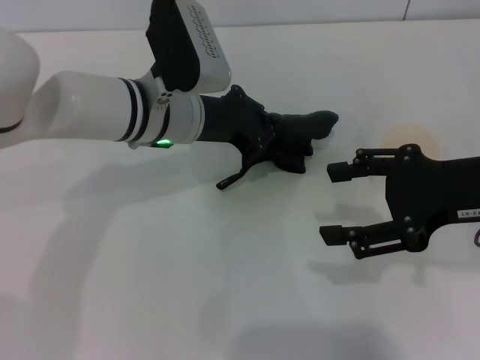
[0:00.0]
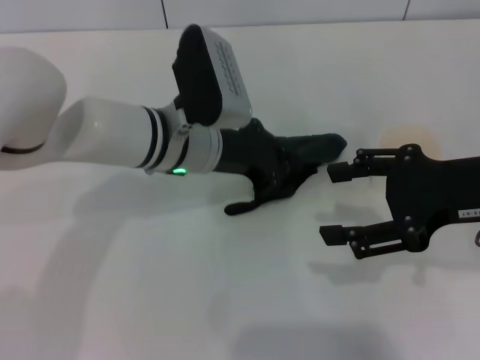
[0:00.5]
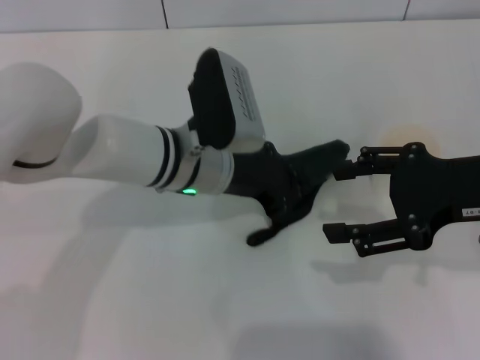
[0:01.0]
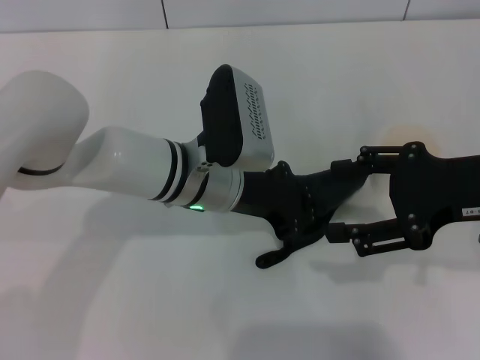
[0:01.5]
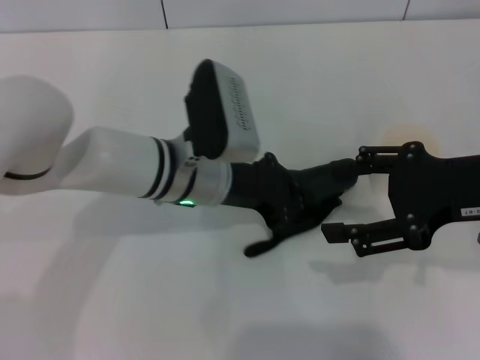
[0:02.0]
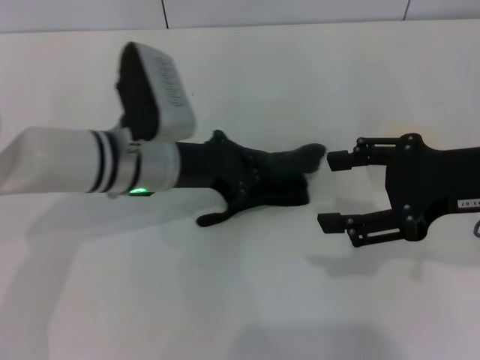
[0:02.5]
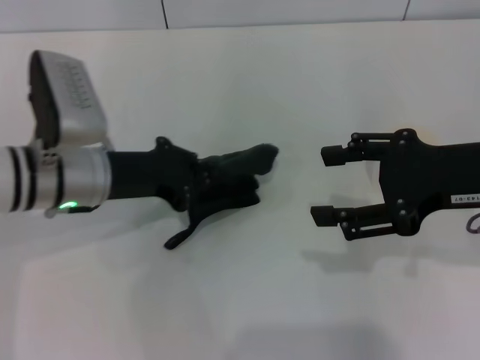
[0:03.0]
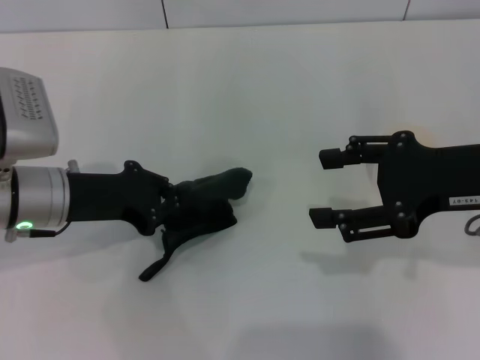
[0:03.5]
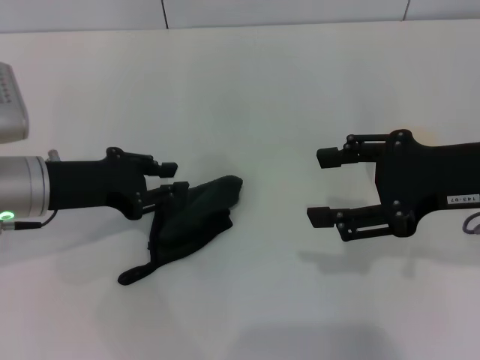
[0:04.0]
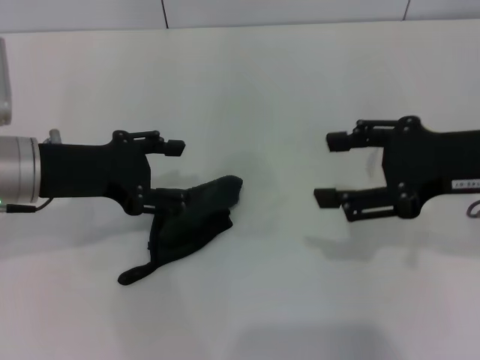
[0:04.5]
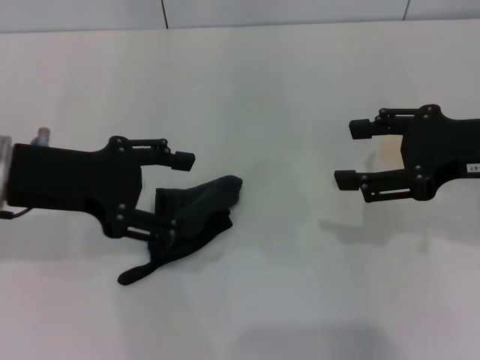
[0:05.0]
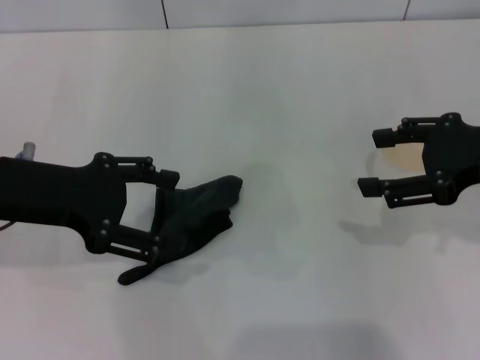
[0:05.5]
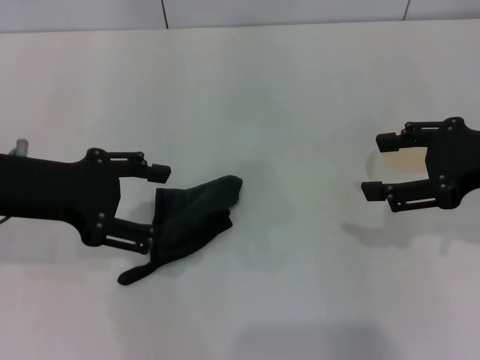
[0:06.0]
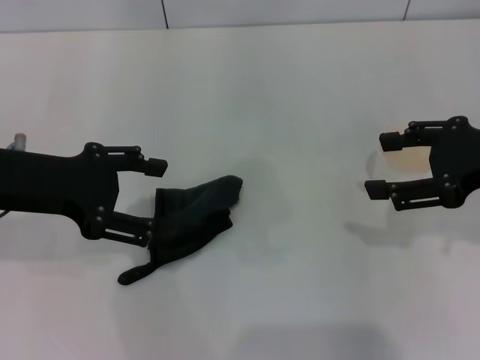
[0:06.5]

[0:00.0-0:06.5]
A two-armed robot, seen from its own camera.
Step, 0:00.0 to 0:02.0: Wipe the stains off the table with the left gripper.
Step, 0:02.5 to 0:04.5: Place the rag on the table with the left gripper.
0:00.0 to 0:02.0: The left gripper moves roughly 5 cm.
0:02.0 to 0:04.5: The left gripper goes approximately 15 cm to the left, and opens its fingers.
0:04.5 to 0:06.5: The grippers stay close to where they were, moving slightly.
